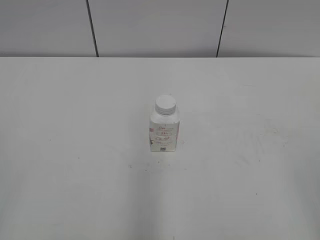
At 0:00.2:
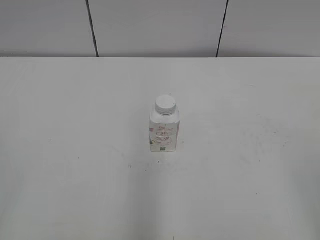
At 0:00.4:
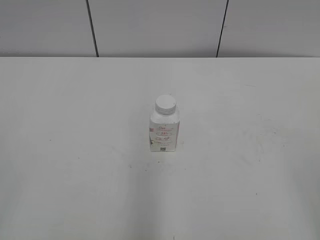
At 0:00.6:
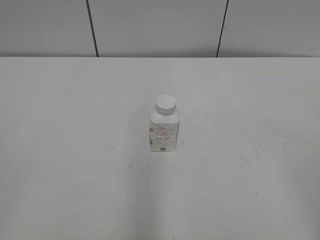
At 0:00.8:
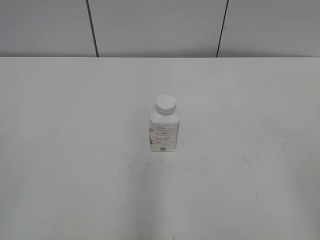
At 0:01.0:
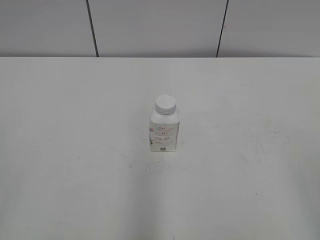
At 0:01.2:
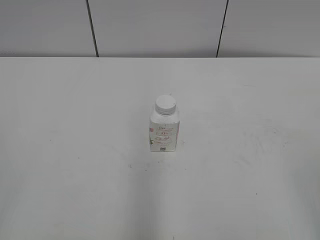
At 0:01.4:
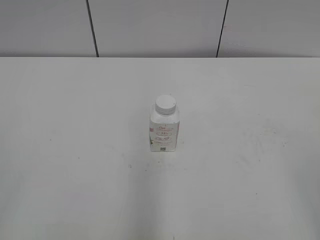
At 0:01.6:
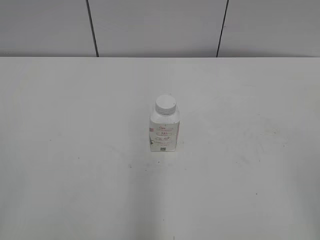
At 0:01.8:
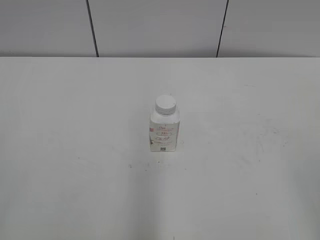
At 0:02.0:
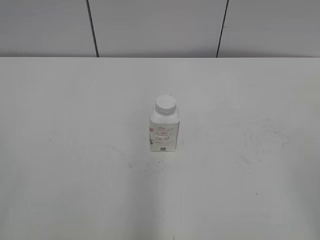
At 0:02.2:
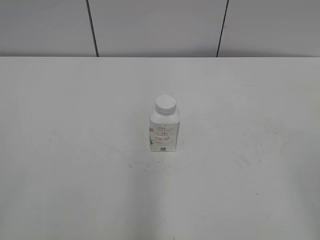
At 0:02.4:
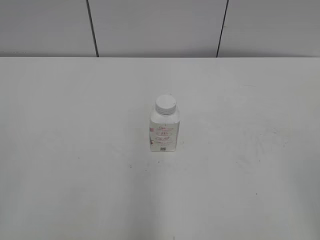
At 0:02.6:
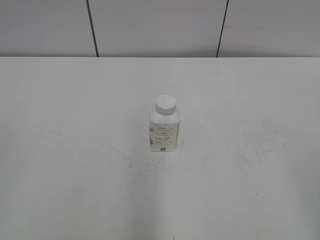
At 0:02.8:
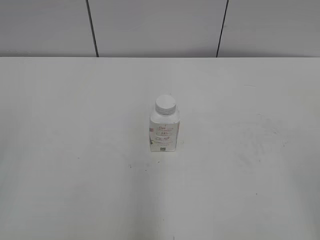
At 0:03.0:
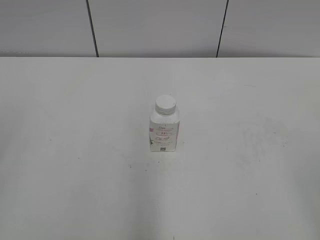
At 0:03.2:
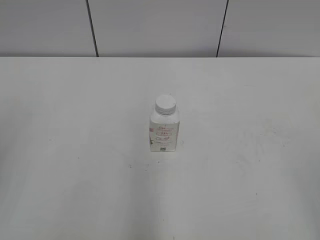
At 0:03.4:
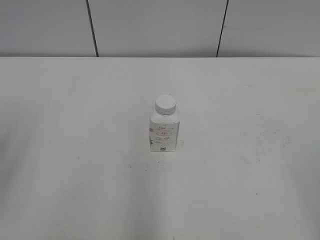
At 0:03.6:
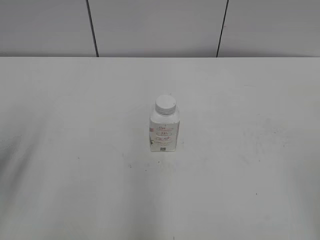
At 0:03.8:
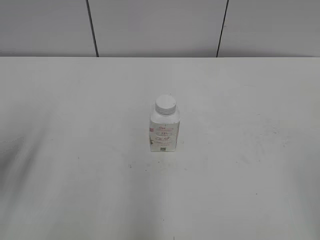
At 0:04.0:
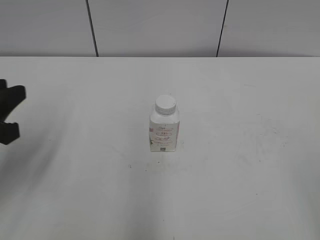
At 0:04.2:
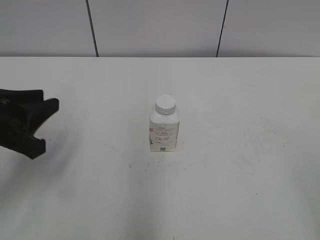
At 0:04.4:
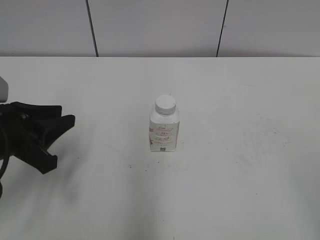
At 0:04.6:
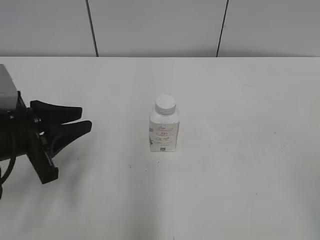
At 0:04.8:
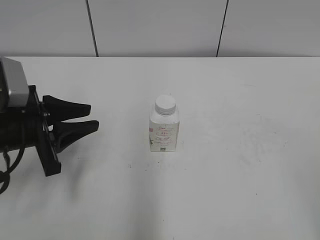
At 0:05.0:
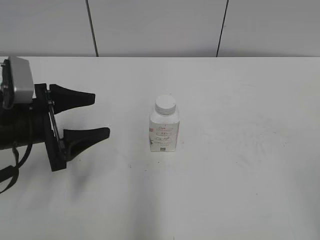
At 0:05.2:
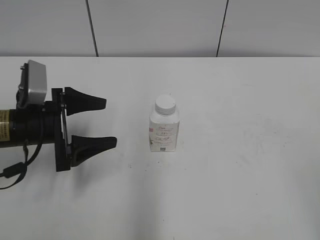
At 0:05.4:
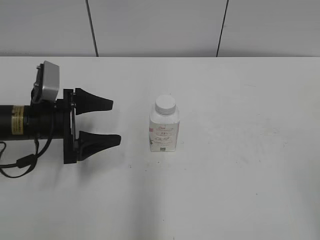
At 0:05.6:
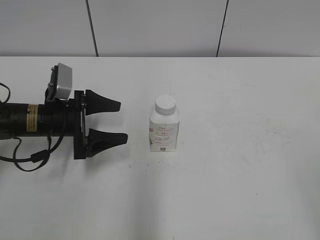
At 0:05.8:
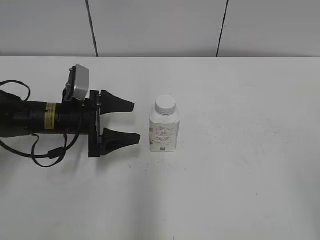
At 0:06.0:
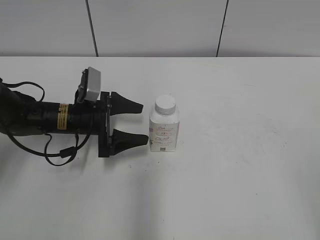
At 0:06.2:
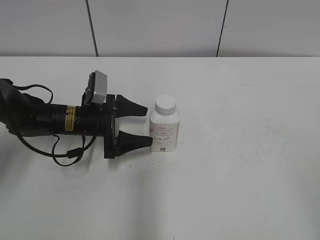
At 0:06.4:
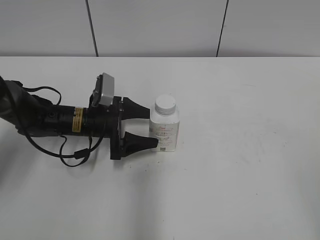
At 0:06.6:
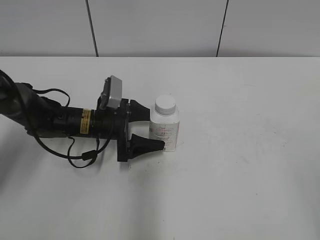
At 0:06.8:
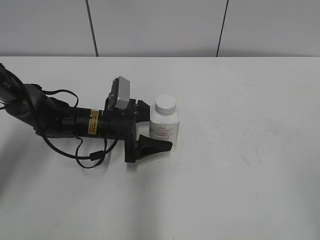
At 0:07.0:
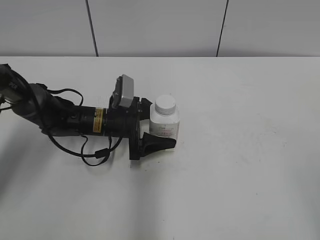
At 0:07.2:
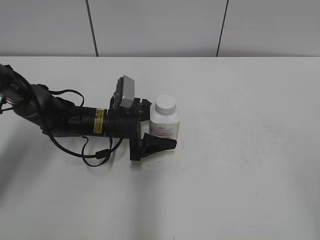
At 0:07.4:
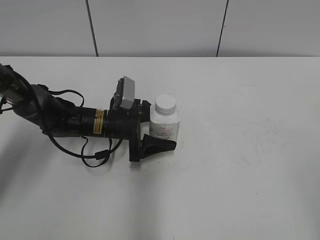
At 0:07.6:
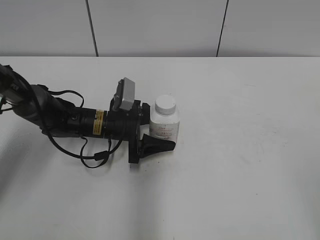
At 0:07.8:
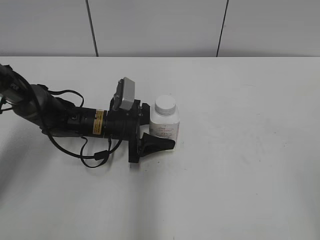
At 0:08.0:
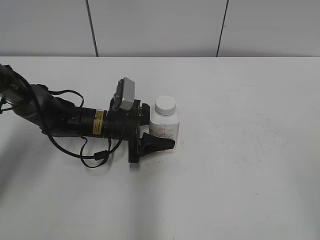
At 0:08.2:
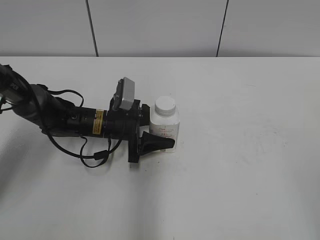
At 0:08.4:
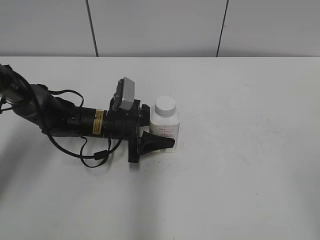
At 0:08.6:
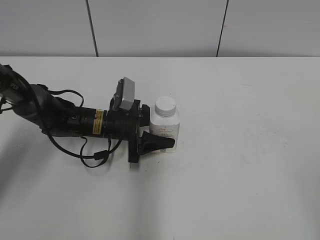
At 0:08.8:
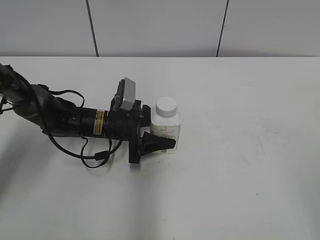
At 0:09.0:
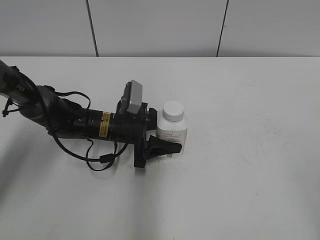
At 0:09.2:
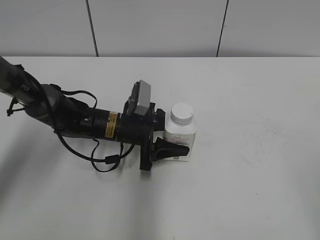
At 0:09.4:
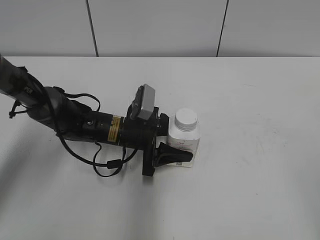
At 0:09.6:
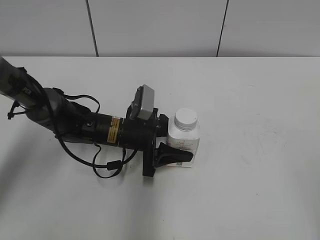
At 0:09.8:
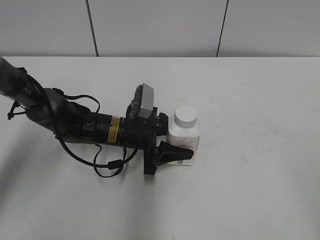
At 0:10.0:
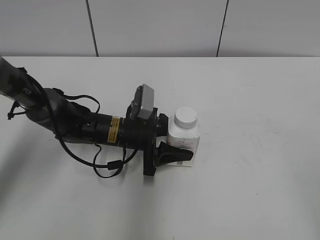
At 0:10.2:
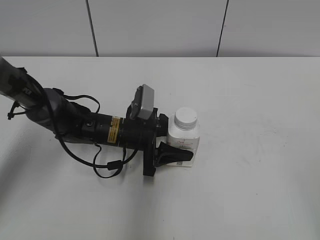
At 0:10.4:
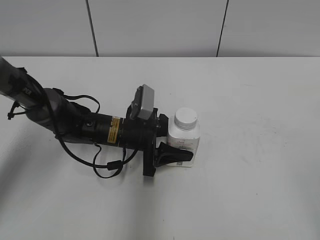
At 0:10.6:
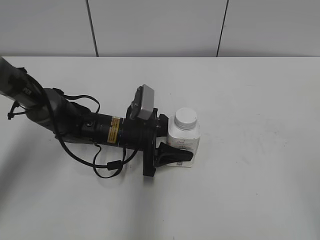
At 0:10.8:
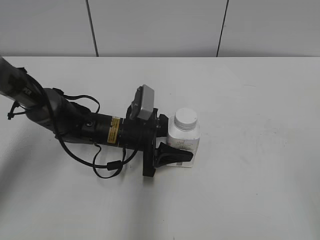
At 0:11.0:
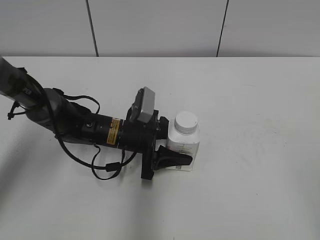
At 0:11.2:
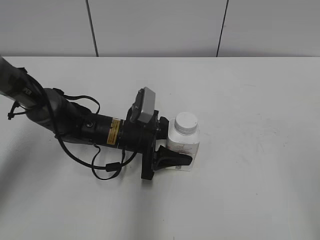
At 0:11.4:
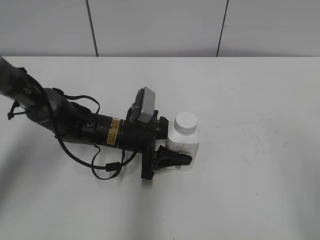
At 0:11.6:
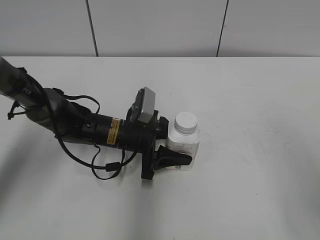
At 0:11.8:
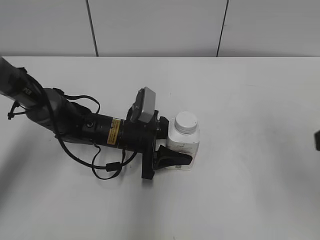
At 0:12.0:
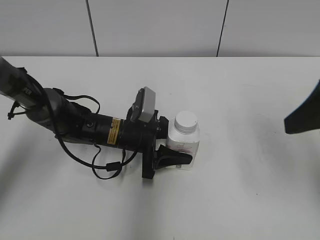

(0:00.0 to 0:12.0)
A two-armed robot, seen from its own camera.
Step, 0:00.0 - 0:08.4: Grasp the bottle and move it to the center of the table with the left gripper.
Step, 0:08.6 - 0:11.6: Lift the bottle and move it to the center of the table with the left gripper.
0:03.0 - 0:04.4: The left gripper goes approximately 25 cm downward, forward and to the right.
0:04.4 - 0:06.0: The left gripper travels forward, downward and to the right by roughly 20 cm, and opens.
0:06.0 - 0:07.6: The left gripper moves to the right, about 5 cm.
0:07.6 - 0:09.0: Neither gripper changes place.
0:09.0 - 0:10.4: There are only small adjustments of the grippers.
0:10.4 - 0:12.0: The right gripper goes about 20 cm forward.

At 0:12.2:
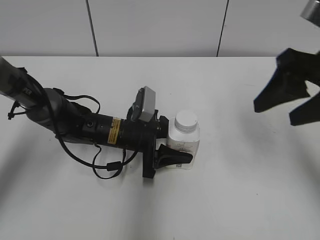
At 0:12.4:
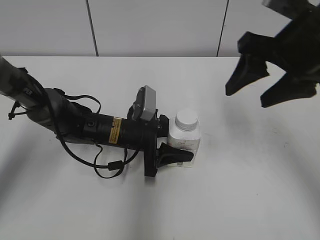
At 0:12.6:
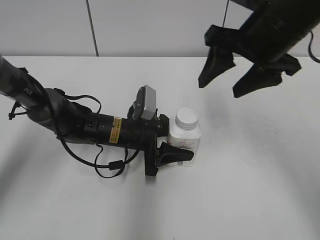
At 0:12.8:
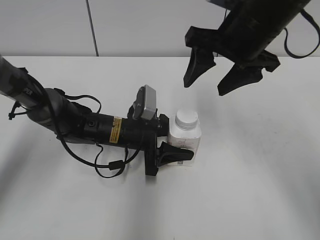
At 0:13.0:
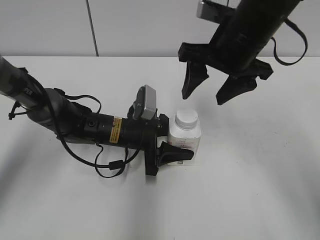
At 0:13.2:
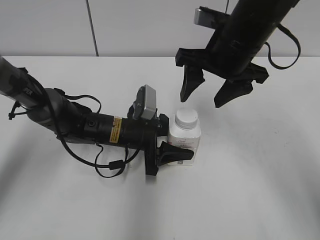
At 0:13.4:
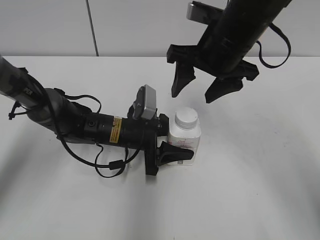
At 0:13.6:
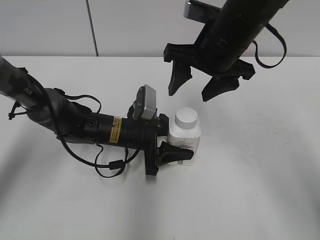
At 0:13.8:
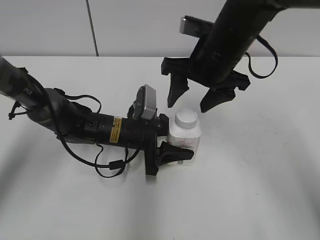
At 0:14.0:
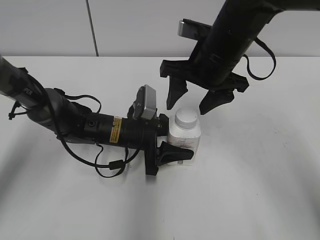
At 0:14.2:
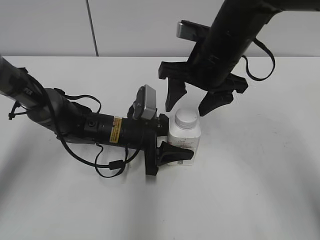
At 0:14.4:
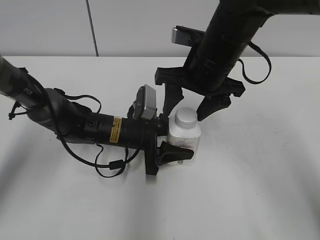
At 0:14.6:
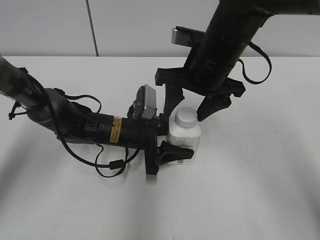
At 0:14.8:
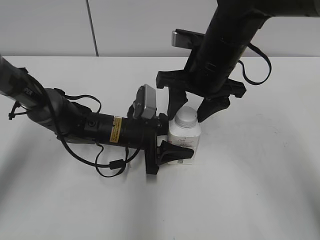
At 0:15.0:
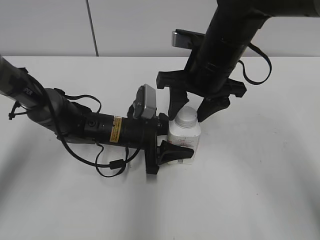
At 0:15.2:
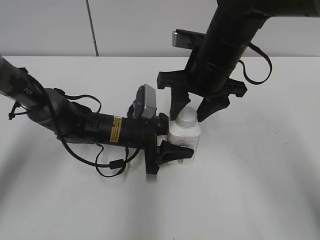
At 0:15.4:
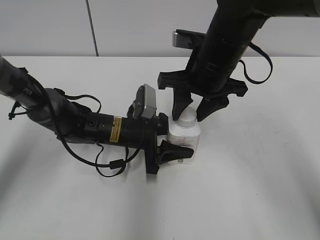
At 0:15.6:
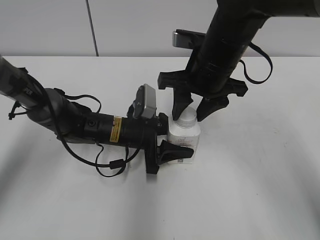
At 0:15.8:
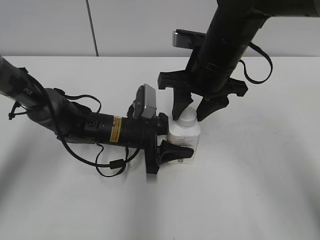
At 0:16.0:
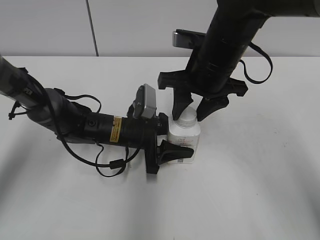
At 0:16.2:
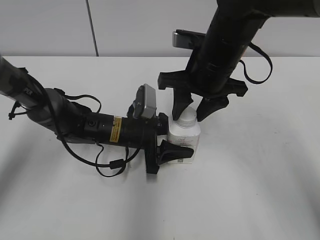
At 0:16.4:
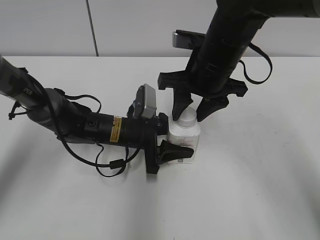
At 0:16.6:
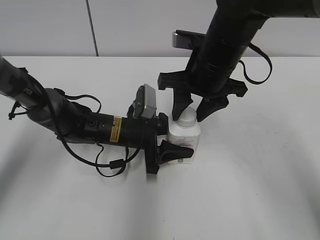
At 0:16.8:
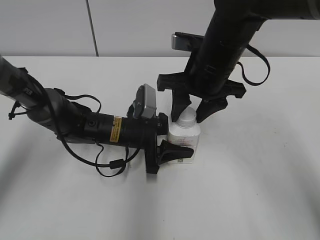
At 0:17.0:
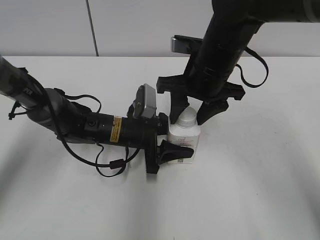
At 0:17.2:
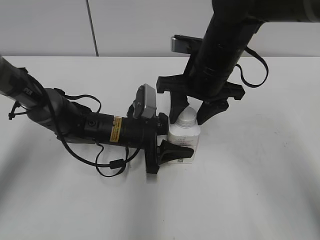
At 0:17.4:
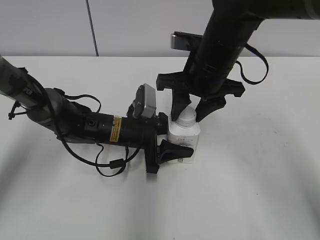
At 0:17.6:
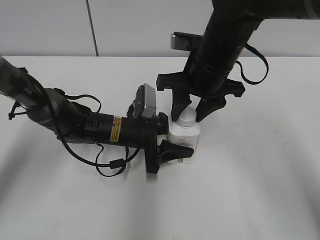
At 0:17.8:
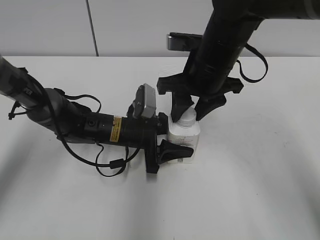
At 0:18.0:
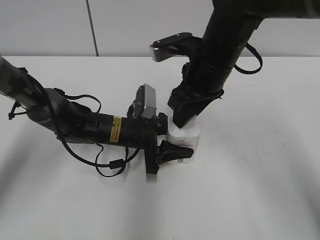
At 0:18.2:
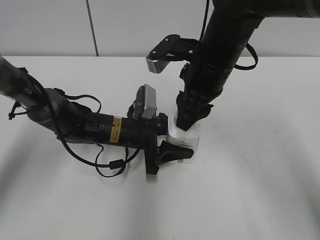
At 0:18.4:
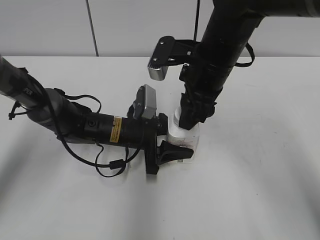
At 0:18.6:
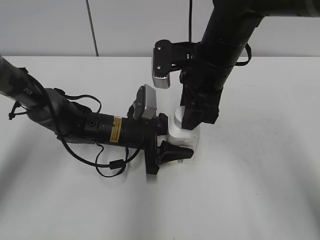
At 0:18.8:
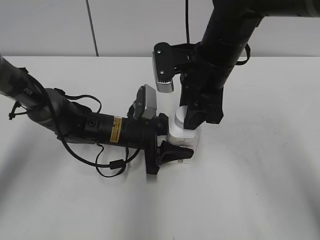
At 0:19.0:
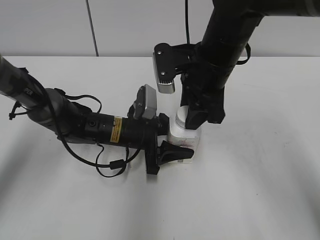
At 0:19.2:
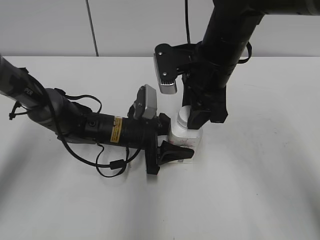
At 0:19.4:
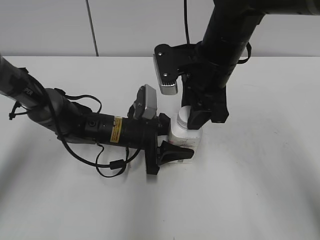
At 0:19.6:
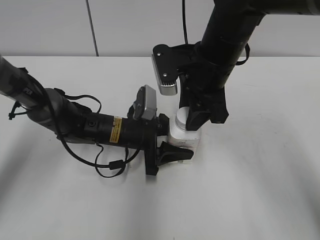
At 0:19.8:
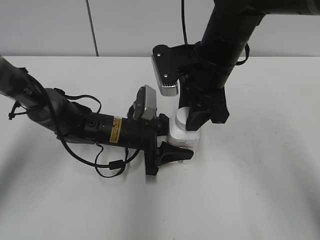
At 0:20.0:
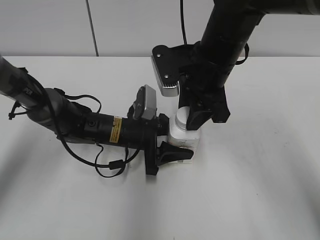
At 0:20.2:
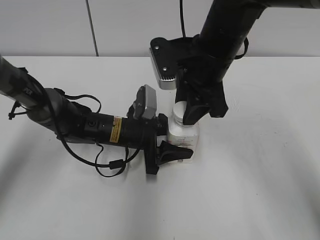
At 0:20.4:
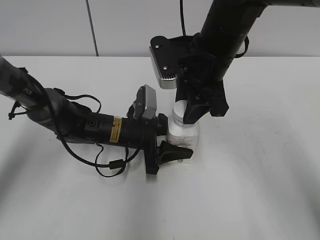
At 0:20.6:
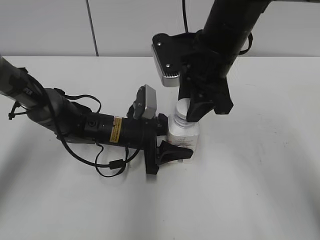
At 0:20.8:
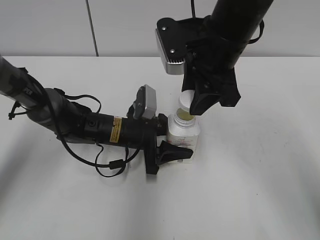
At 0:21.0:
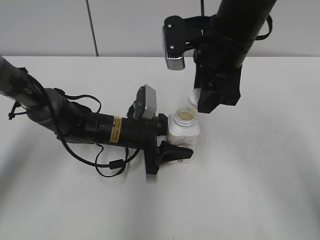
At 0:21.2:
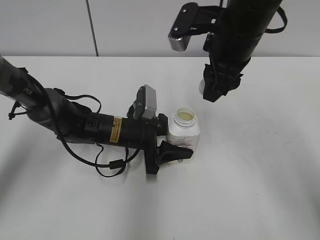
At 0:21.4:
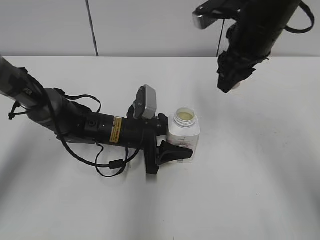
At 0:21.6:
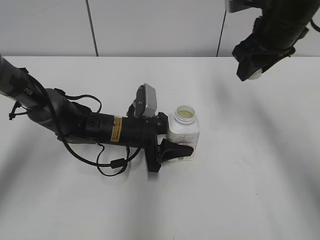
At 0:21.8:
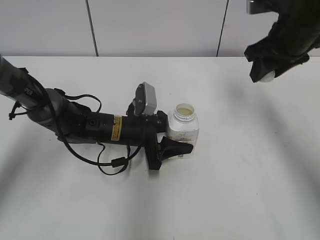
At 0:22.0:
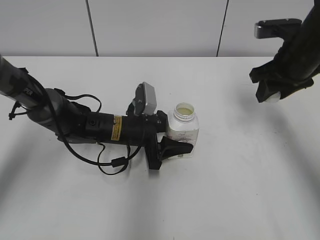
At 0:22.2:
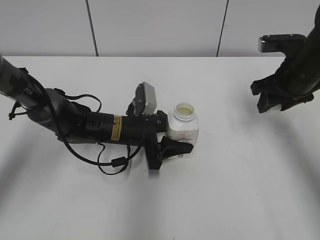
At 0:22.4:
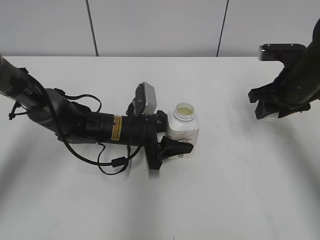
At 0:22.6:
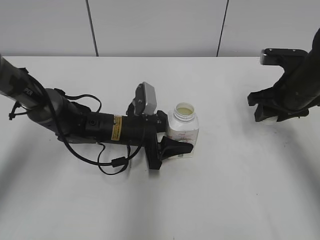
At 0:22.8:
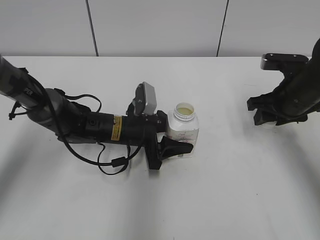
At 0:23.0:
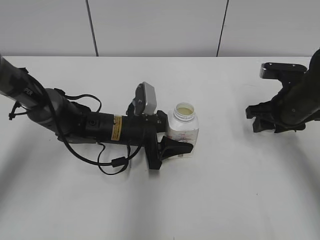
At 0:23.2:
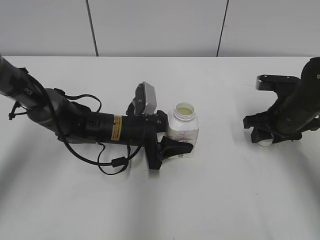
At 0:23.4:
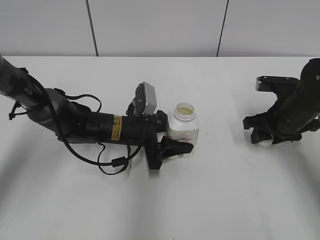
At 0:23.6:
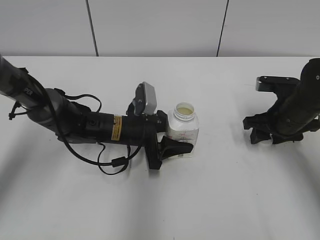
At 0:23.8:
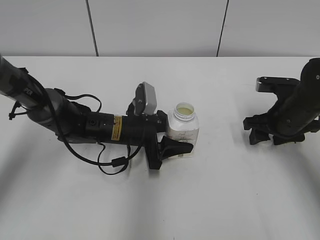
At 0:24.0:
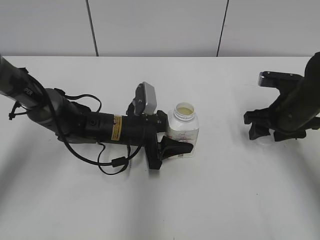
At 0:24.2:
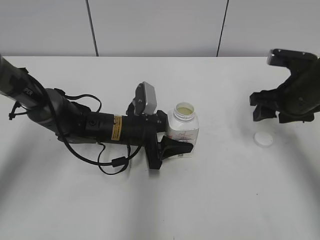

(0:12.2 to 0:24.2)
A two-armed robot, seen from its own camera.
Step, 0:12.2 - 0:20.6: Unscrew the bottle cap with the right gripper while holding the bottle with the left gripper.
Step, 0:21.0 - 0:23.4: Place the bottle cap on the table with the right gripper.
0:12.2 - 0:13.8: The right gripper shifts some 15 cm to the left, forward and downward.
0:13.8 - 0:15.2: The right gripper closes.
0:15.2 - 0:16.6: Both grippers stay about where they are.
0:19.8 - 0:21.2: The right gripper ends up some 5 cm from where it was.
0:21.2 - 0:22.6: The right gripper shifts approximately 15 cm to the right and downward.
0:22.6 - 0:24.2: The right gripper opens its fingers.
